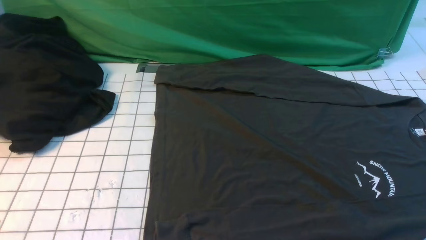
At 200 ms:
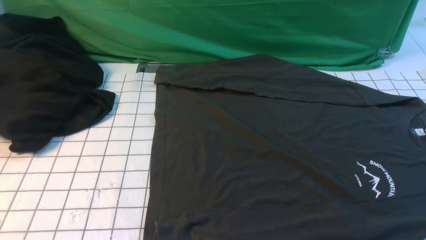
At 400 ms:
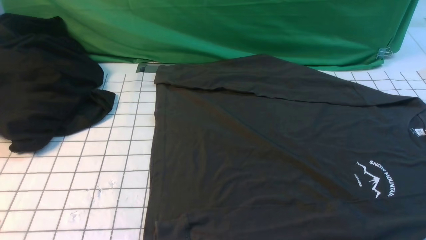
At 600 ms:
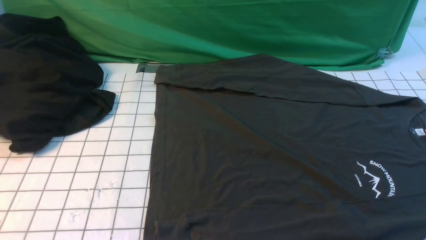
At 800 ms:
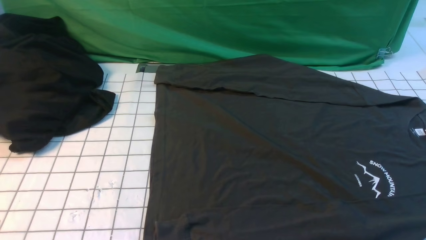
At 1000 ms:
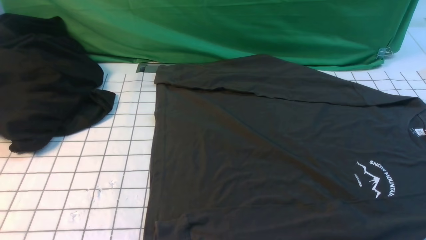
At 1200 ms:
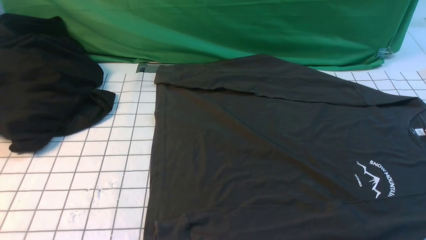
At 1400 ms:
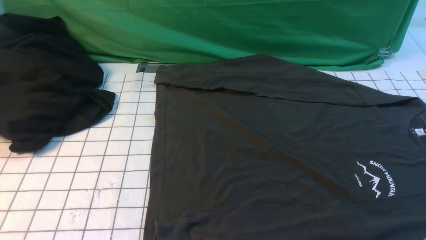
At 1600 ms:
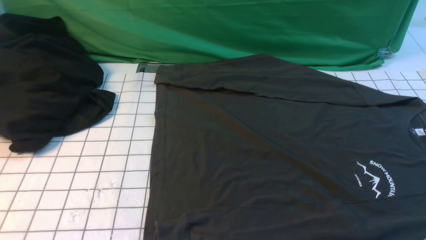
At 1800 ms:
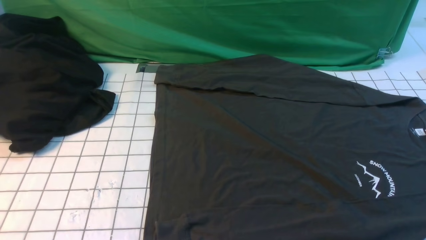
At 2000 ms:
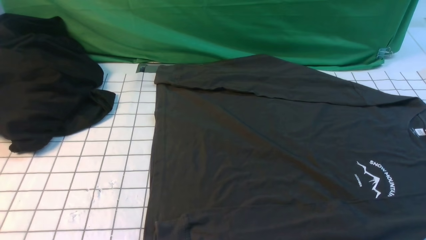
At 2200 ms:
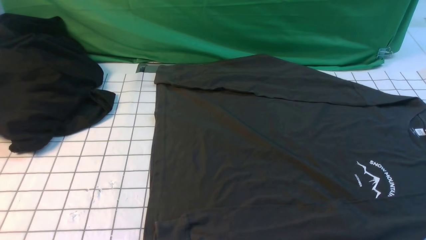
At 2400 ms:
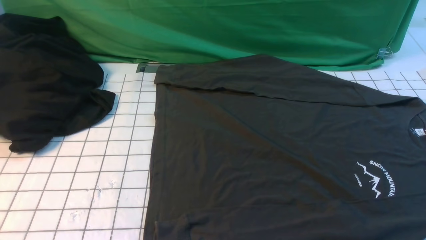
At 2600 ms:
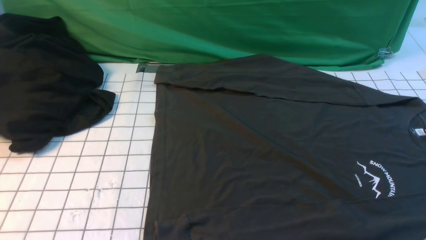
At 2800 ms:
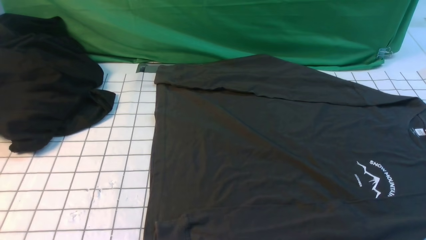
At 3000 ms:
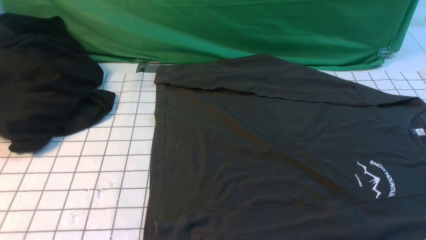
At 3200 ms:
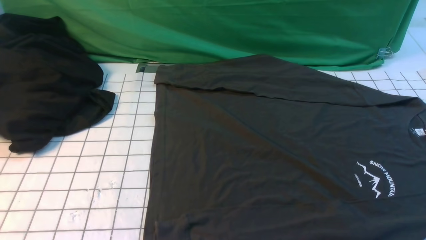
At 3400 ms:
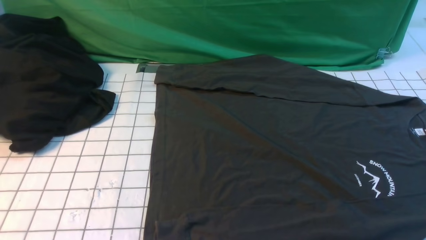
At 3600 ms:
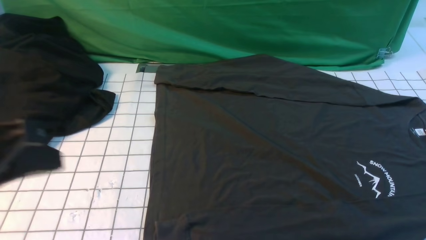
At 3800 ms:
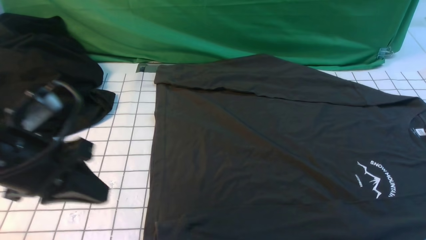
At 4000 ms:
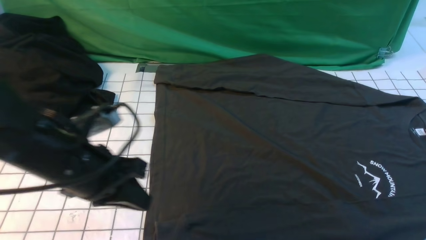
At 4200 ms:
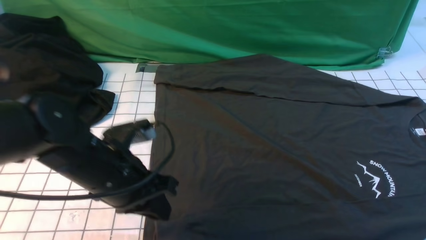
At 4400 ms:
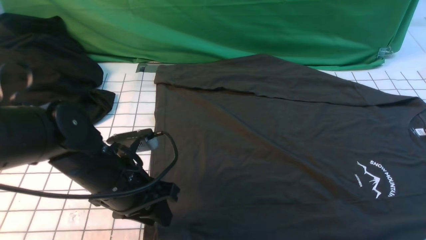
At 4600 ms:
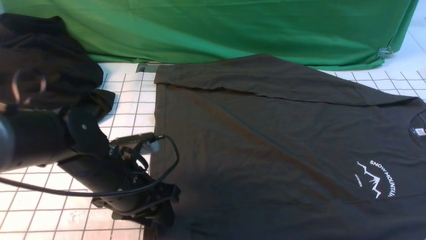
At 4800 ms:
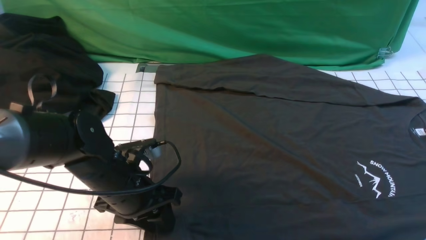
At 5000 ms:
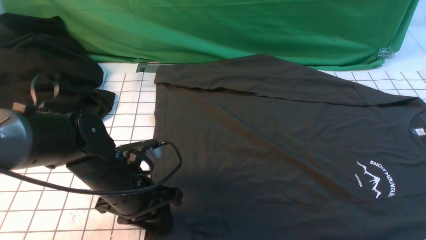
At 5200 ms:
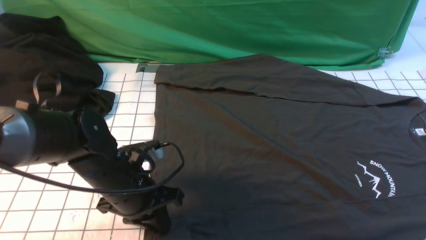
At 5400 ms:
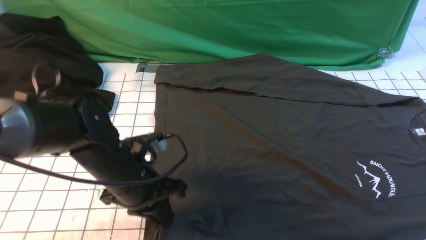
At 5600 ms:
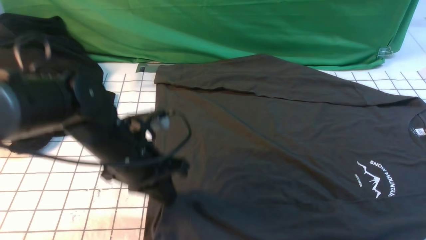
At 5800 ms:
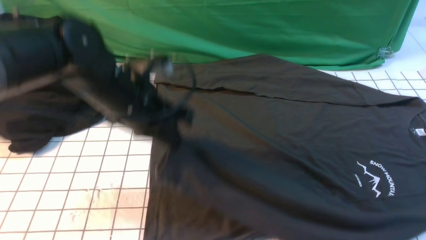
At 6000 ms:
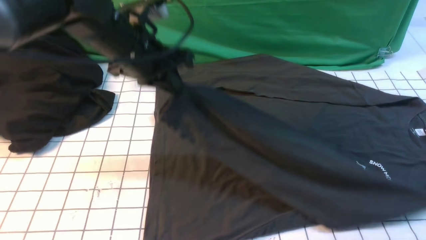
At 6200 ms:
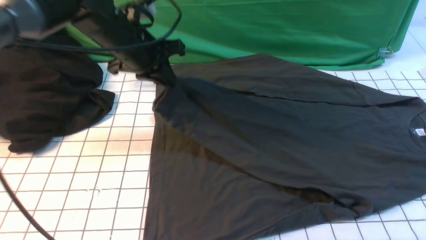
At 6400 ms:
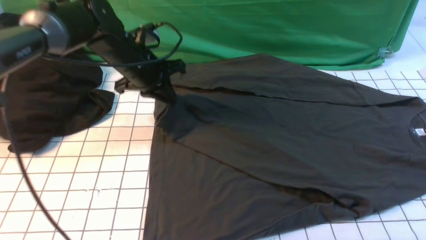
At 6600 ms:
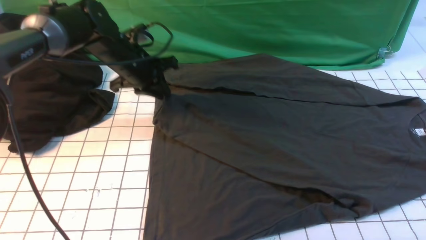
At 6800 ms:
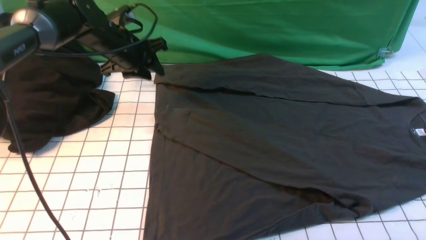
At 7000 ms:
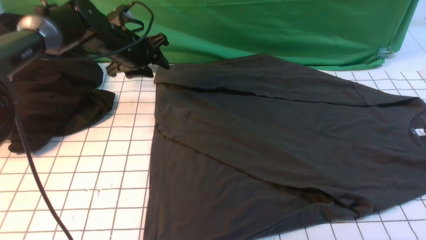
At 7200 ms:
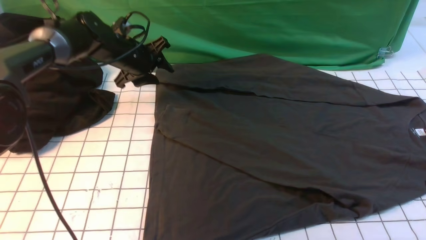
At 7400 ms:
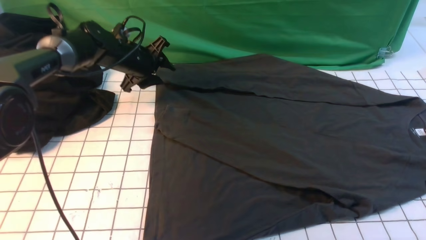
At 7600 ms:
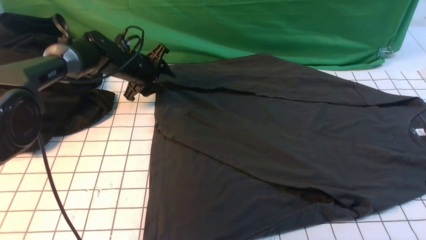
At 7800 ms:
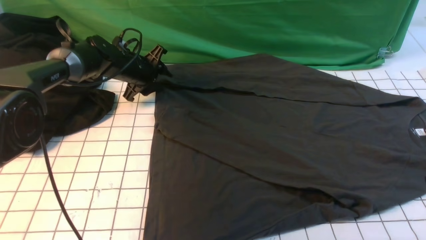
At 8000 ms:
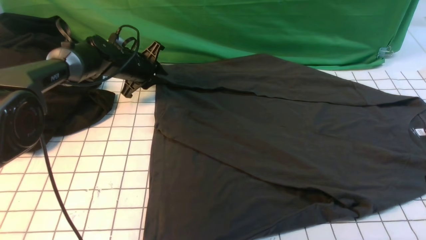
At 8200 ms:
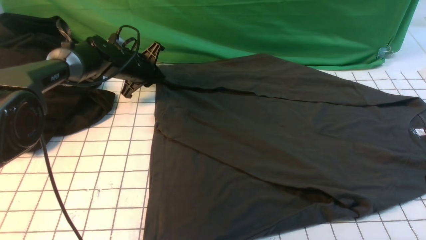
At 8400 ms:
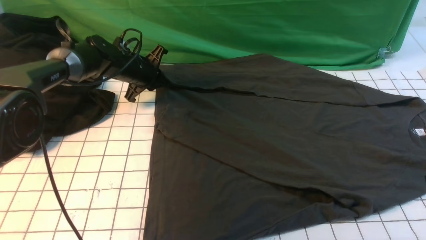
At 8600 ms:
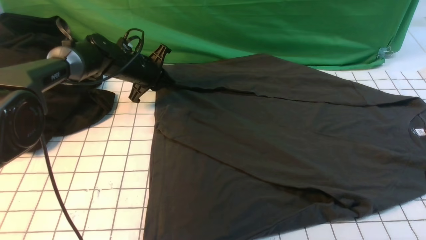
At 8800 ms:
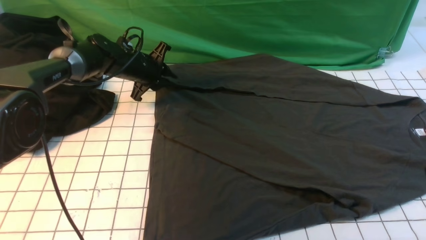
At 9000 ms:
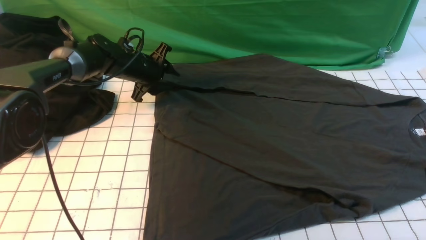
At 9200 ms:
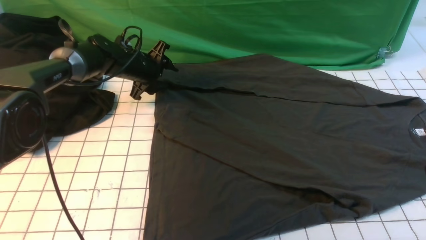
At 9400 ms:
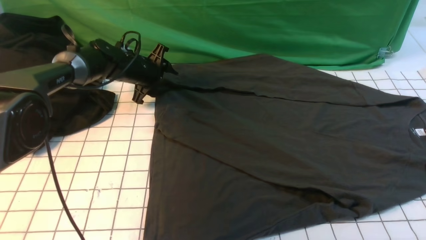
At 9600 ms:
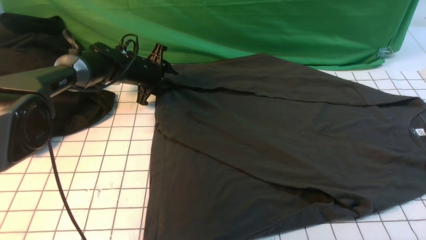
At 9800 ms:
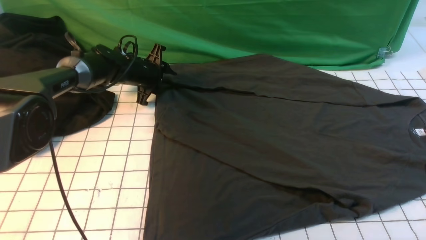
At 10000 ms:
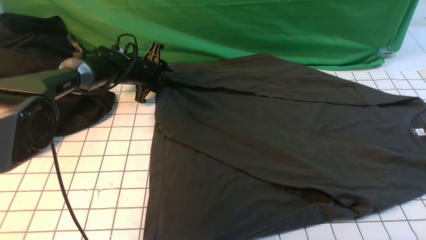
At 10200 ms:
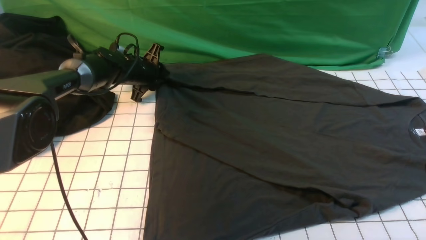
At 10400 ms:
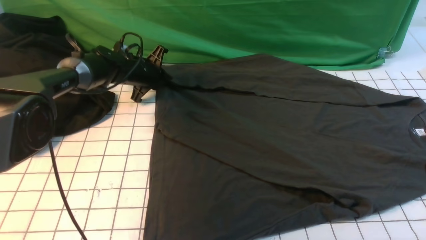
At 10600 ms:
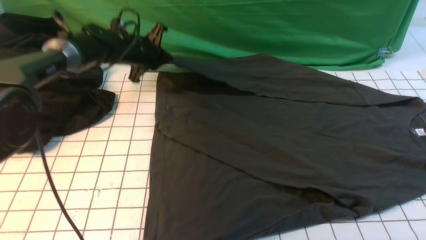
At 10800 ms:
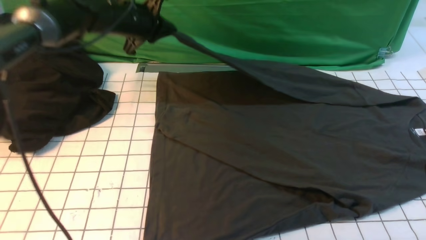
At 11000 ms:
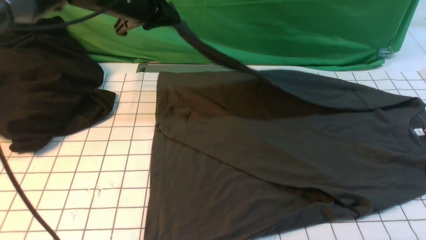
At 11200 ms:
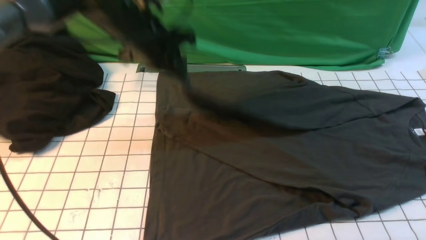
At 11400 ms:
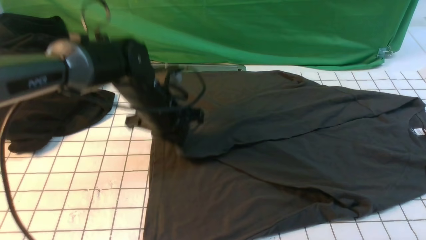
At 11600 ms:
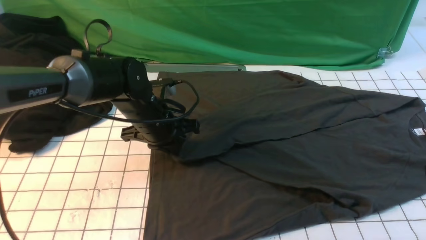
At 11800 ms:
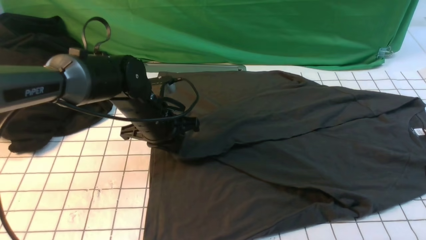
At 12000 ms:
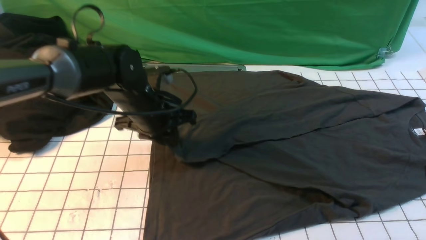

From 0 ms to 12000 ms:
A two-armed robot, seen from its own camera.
Step, from 0 ms to 5000 ms: use the left arm to clamp the cuff closest to it.
Step, from 5400 ms to 6600 ms: use the left arm to drag and place the cuff at the centered position on the left edge of the fabric.
Step, from 6800 ms to 10200 ms: use the left arm to clamp the cuff farthest from it.
From 0 ms to 1600 ms: The two grippers keep their place.
From 3000 ms to 4400 ms: The left gripper moves forward and to the right, some 25 cm, and opens up; the right gripper is displaced forward and upward by roughly 10 cm.
From 4400 ms to 6000 ms: The left gripper is displaced forward and upward by roughly 15 cm, and closes.
From 6000 ms to 7600 ms: The left gripper moves forward and downward, some 20 cm, and opens.
From 7600 ms to 9000 ms: The left gripper closes, then opens again.
From 9000 ms to 10400 ms: The left gripper closes up.
From 10400 ms to 12000 ms: The left gripper goes about 15 cm backward, and opens.

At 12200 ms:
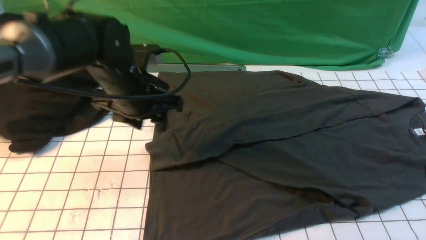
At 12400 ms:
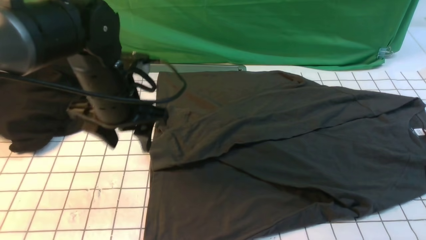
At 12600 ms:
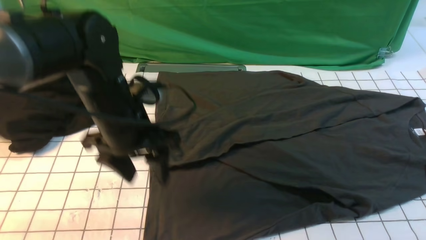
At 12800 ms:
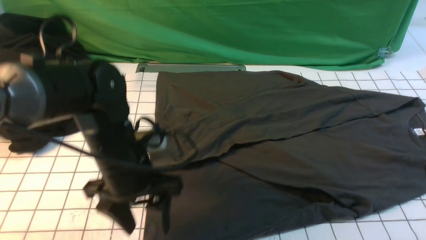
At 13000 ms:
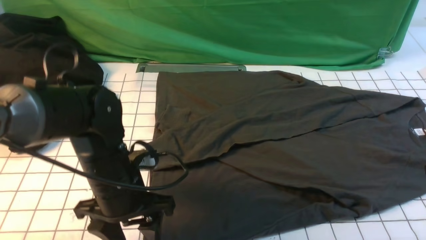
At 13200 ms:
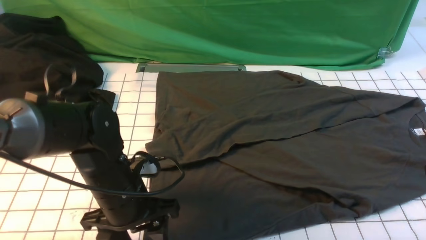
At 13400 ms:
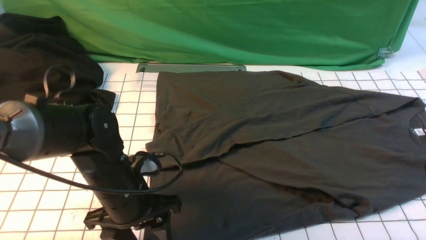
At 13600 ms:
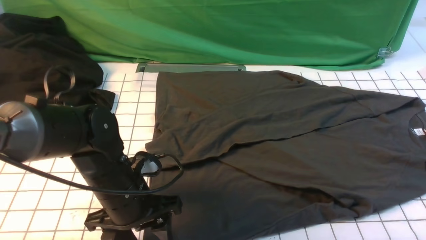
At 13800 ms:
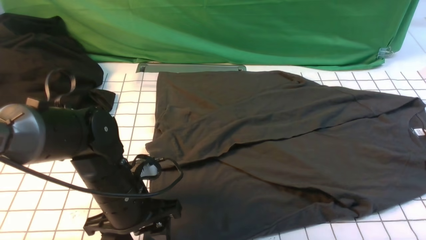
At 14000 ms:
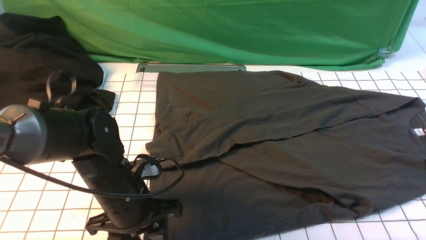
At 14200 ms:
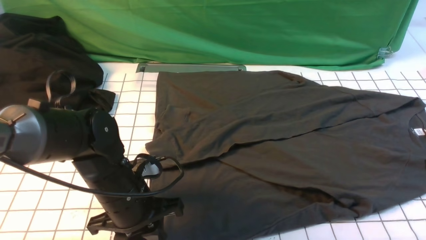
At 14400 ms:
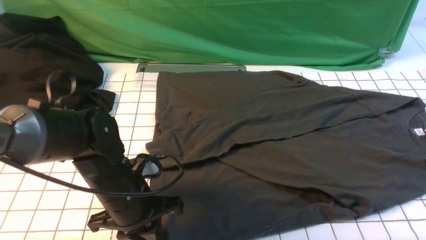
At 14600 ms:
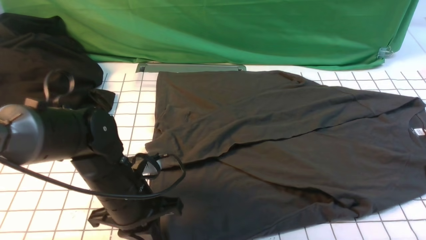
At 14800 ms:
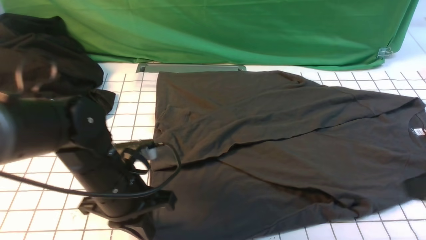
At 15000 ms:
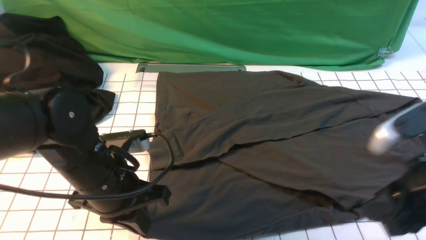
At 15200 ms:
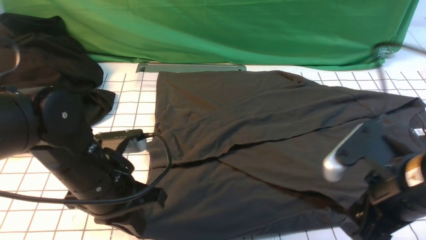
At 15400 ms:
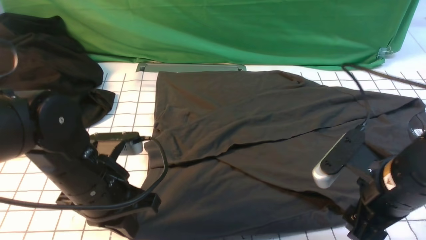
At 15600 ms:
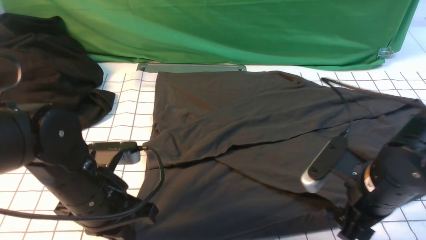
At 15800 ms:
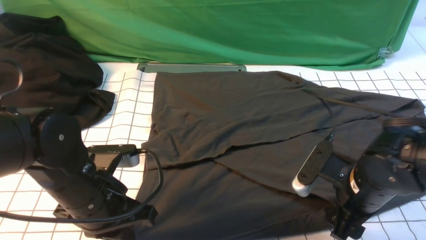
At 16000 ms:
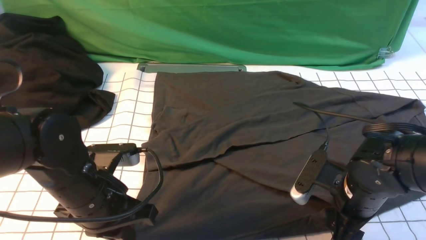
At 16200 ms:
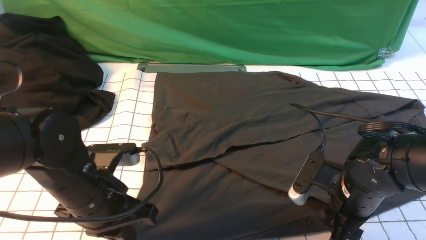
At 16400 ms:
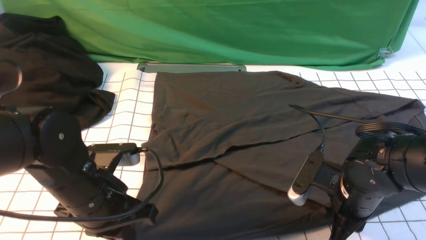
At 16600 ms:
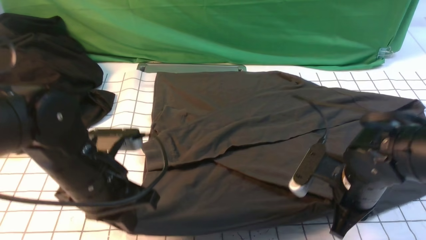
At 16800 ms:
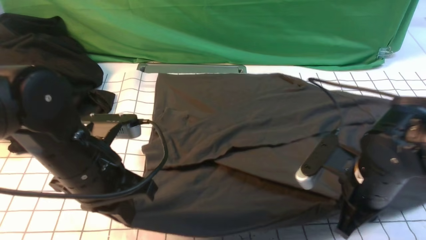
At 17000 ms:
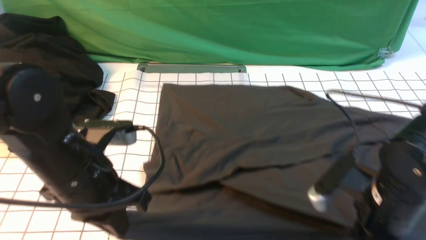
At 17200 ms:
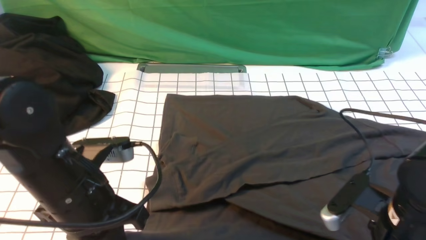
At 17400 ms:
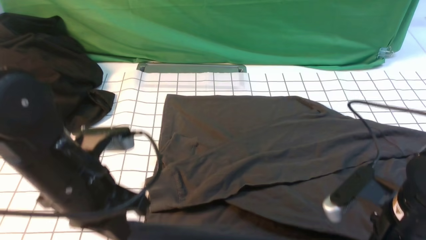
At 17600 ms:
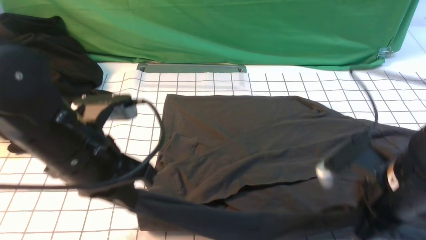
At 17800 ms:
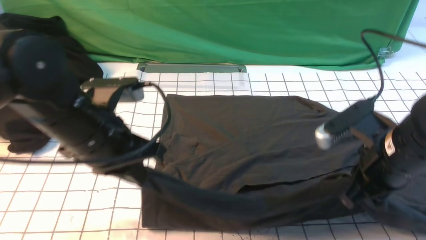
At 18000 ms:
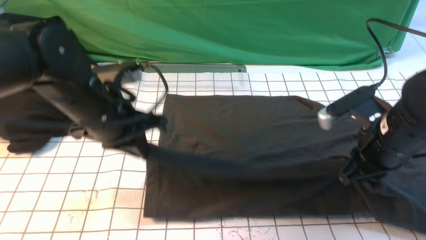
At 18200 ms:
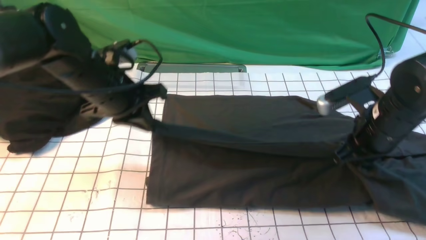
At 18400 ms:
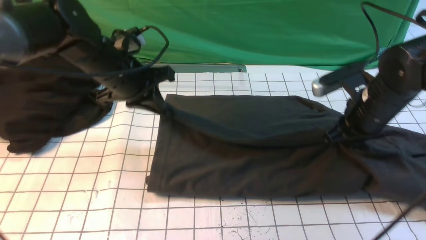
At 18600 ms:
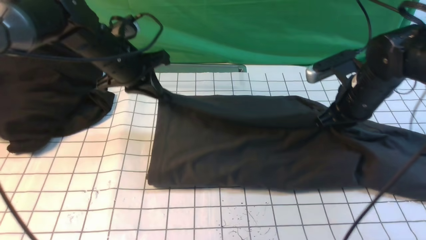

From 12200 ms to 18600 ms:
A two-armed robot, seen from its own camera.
Step, from 12200 ms to 16400 ms: use both arms simultaneously to clamp the lower edge of the clothing fabric.
From 12200 ms to 13800 ms: The left gripper is displaced backward and downward by approximately 15 cm.
From 13800 ms to 15400 ms: The left gripper moves upward, approximately 5 cm, and closes its fingers. Meanwhile the right gripper shifts about 15 cm downward, to the left and forward, and opens its fingers.
From 15400 ms to 17000 ms: The right gripper closes.
From 17000 ms to 18600 ms: The two grippers go some 20 cm forward.
